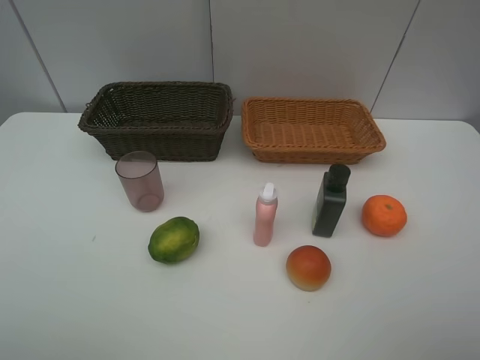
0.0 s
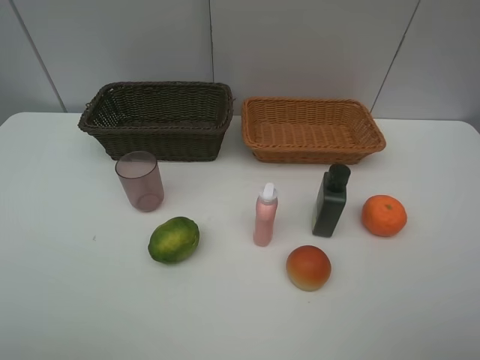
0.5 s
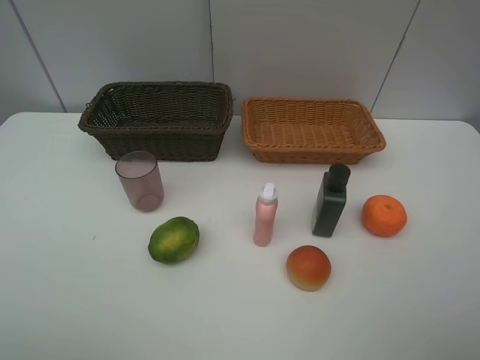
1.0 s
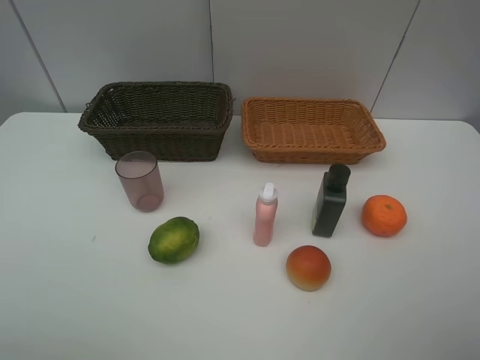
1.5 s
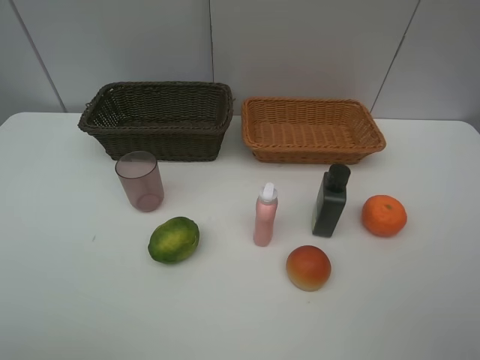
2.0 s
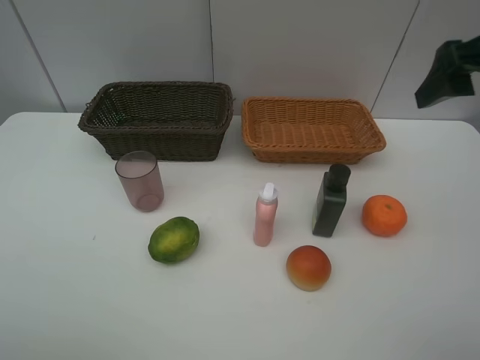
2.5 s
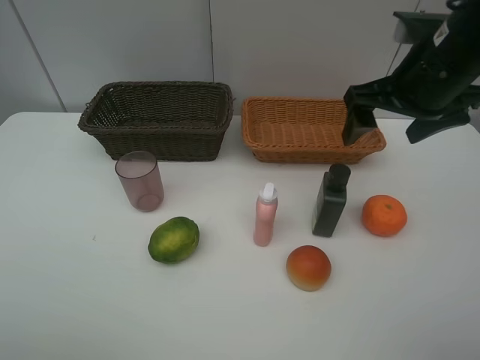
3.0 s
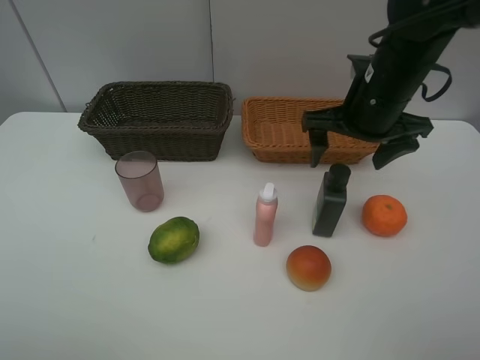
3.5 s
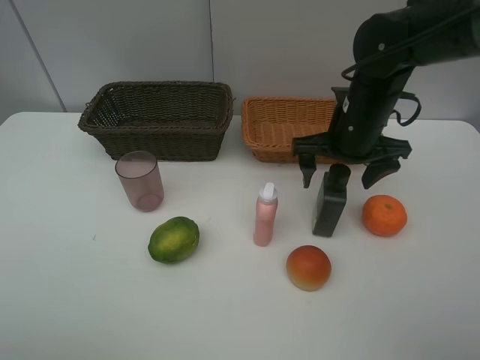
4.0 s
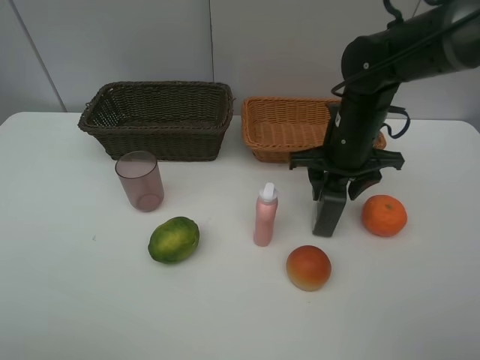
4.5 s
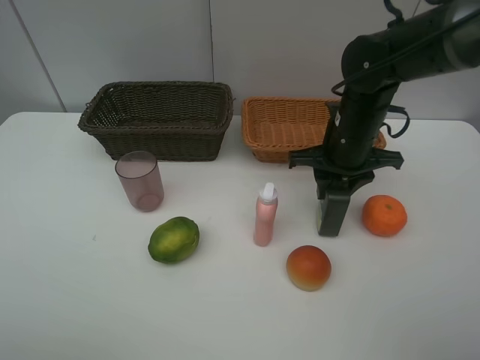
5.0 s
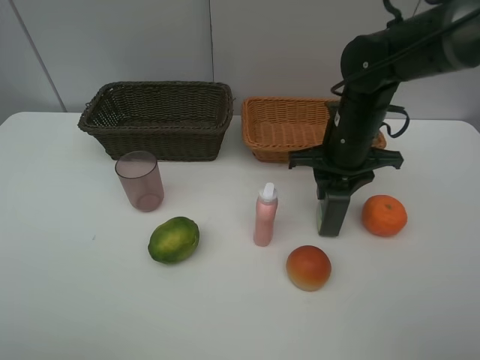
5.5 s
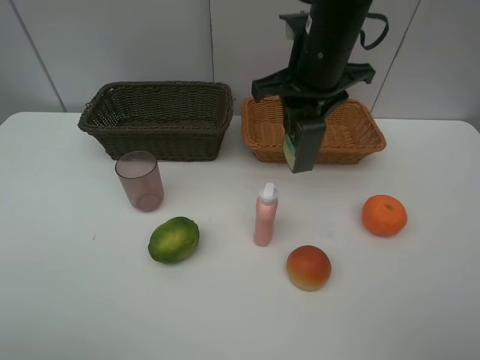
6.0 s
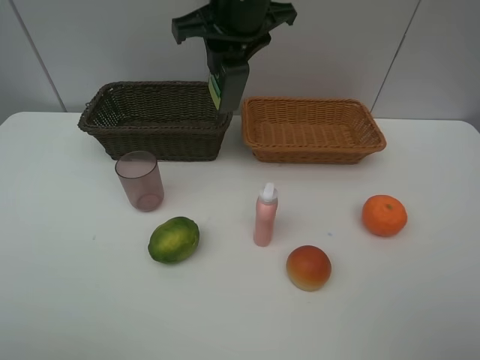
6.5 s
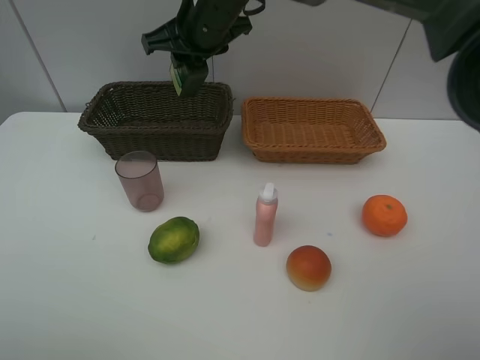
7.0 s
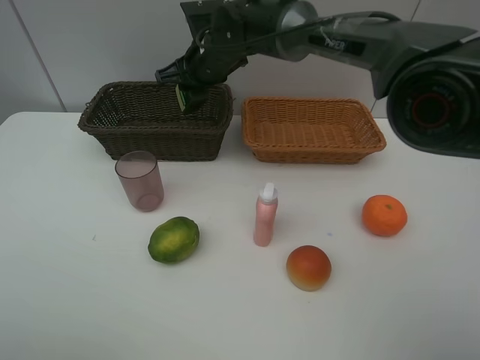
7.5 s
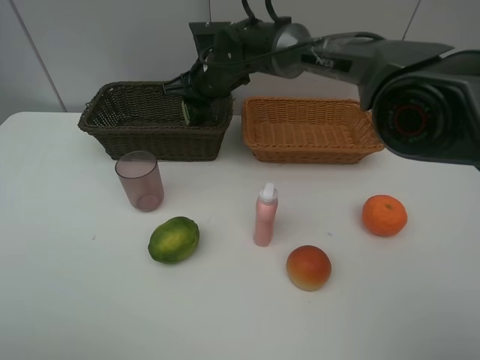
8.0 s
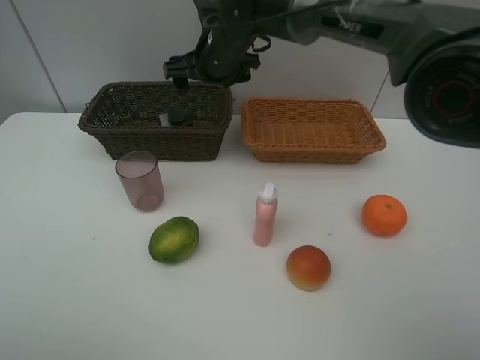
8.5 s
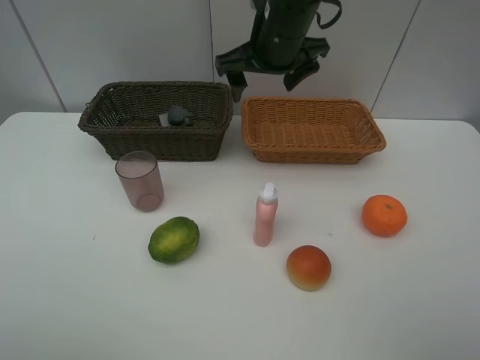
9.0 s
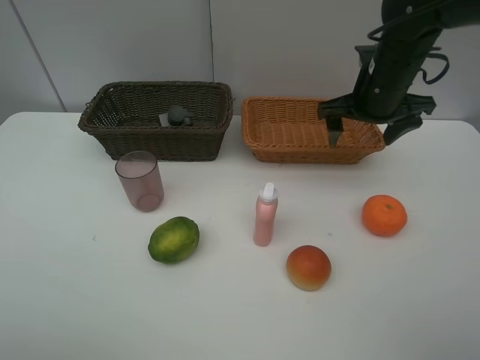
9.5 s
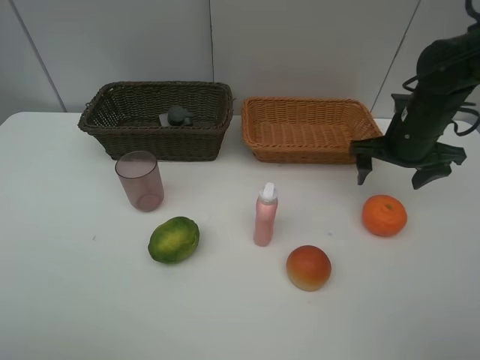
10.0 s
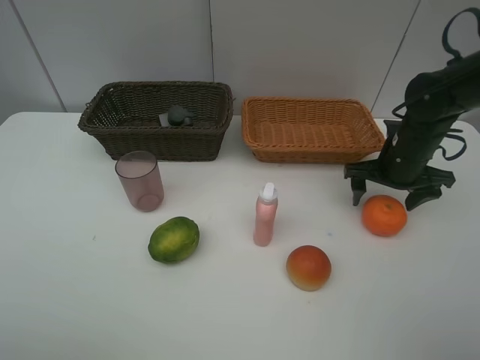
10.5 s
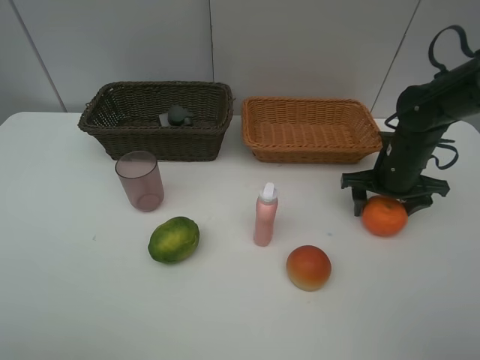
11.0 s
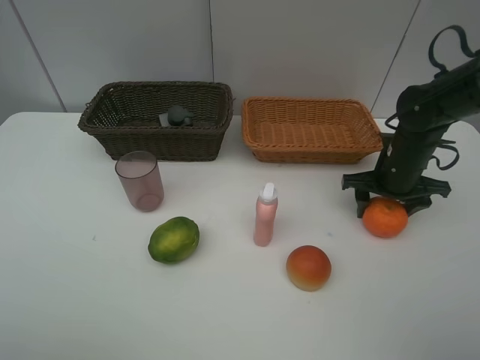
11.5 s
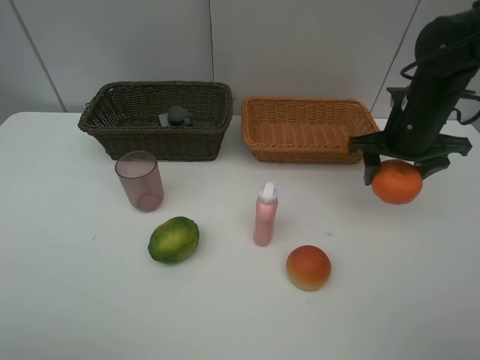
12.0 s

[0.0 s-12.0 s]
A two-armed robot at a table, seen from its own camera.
Task of the whole recording: place multiple objects separately in different baskets.
2.0 to 4.0 s: The right gripper shifts some 30 cm forward, to the left and downward.
4.0 to 6.0 s: The right gripper moves upward and to the left, some 10 cm, and closes its fingers.
6.0 to 8.0 s: The right gripper travels to the left, forward and downward by roughly 20 cm.
8.0 to 10.0 s: The right gripper is displaced to the right and backward by approximately 30 cm, and opens.
10.0 to 12.0 s: The grippers make only small movements.

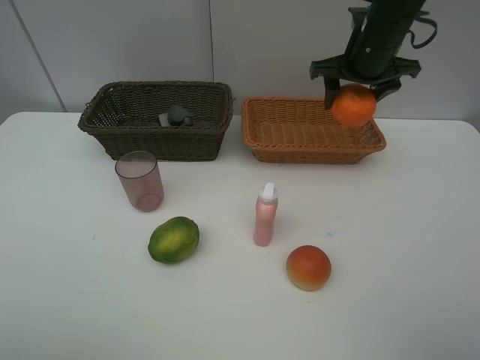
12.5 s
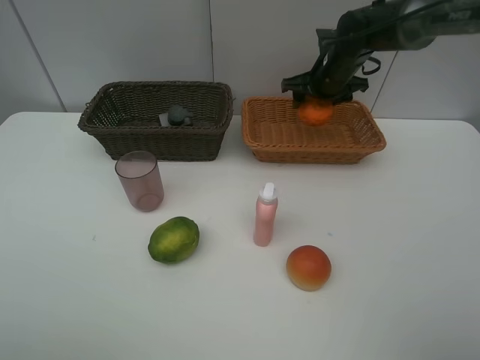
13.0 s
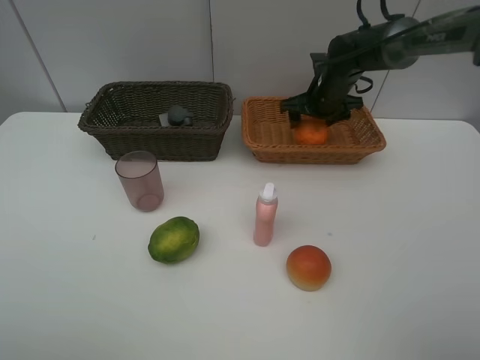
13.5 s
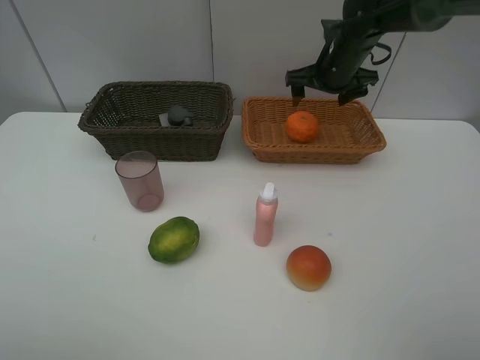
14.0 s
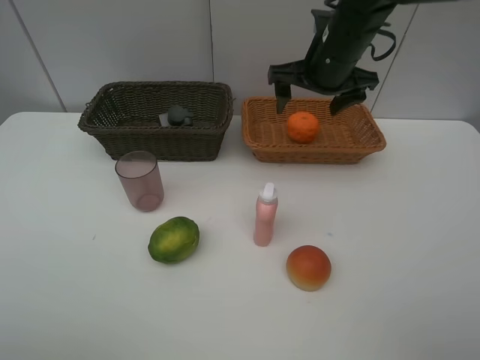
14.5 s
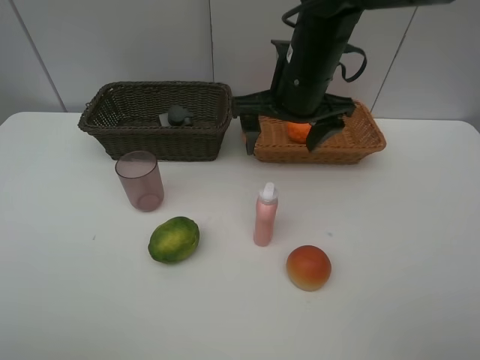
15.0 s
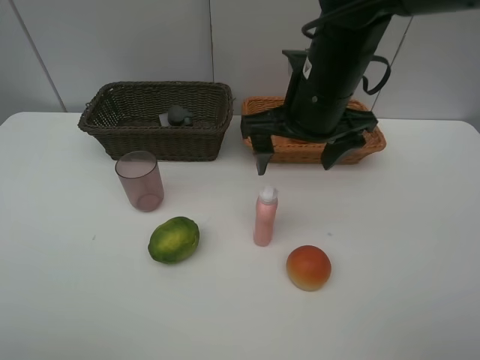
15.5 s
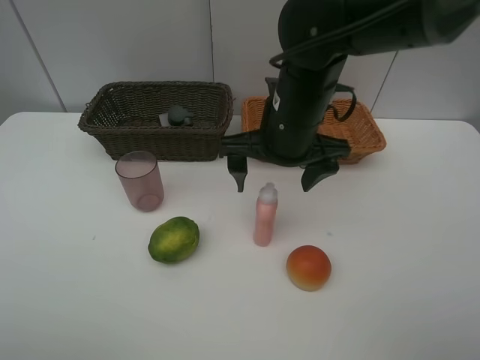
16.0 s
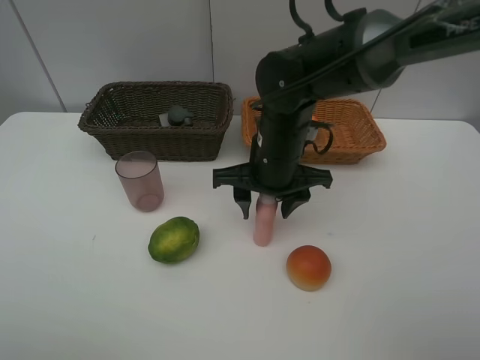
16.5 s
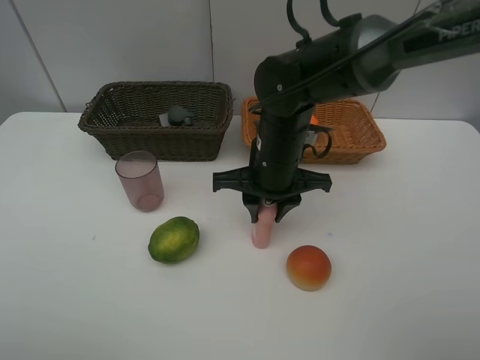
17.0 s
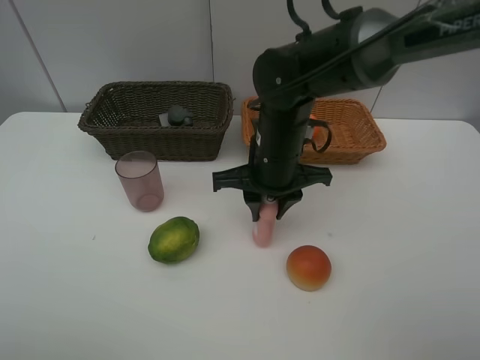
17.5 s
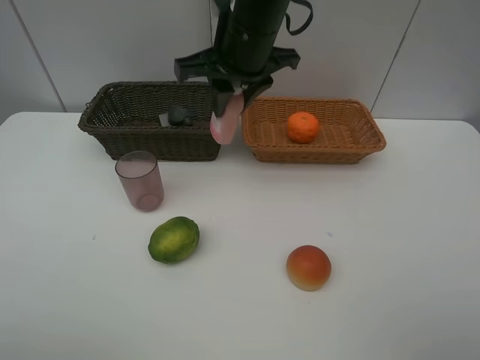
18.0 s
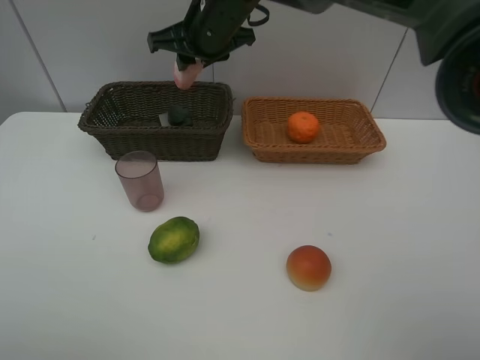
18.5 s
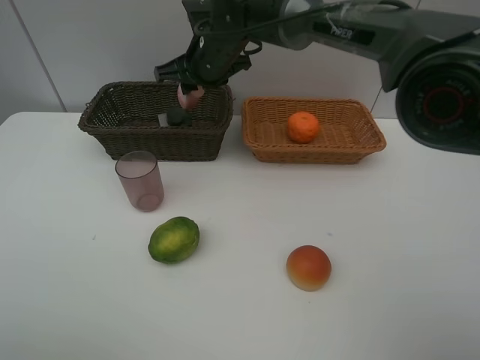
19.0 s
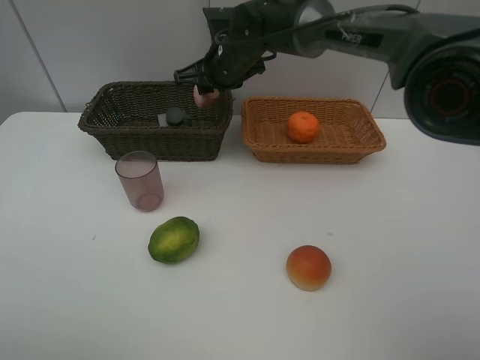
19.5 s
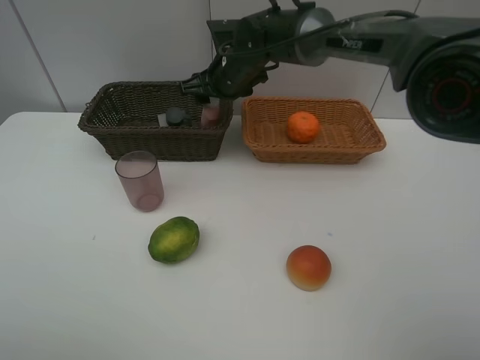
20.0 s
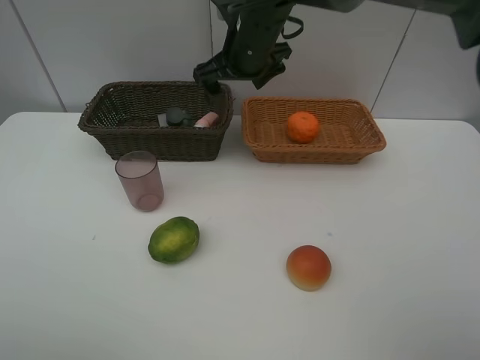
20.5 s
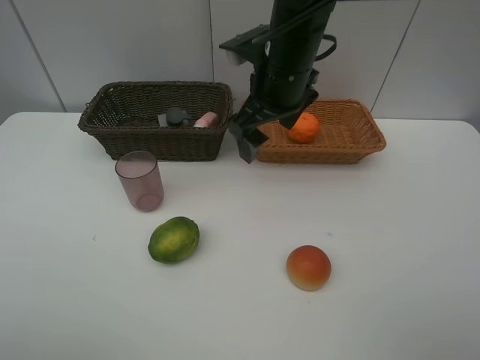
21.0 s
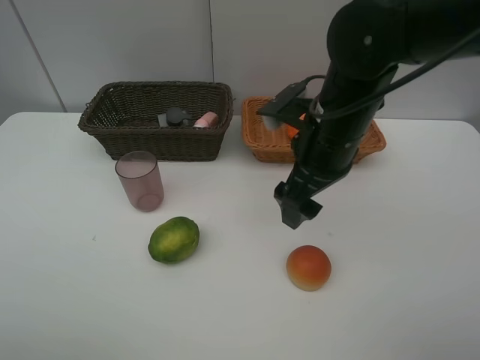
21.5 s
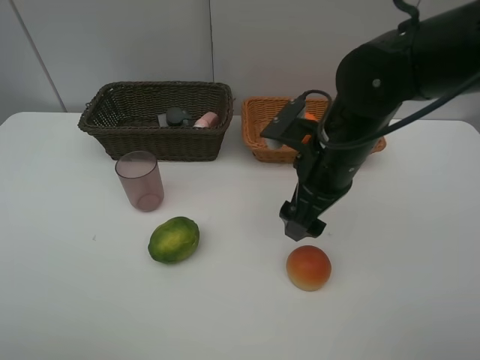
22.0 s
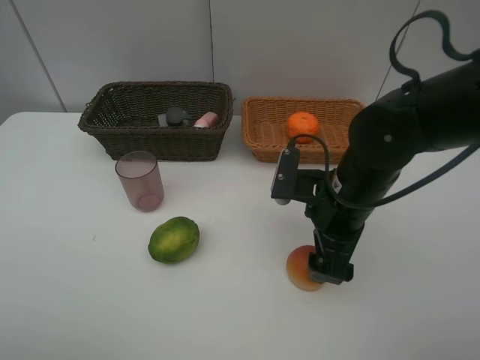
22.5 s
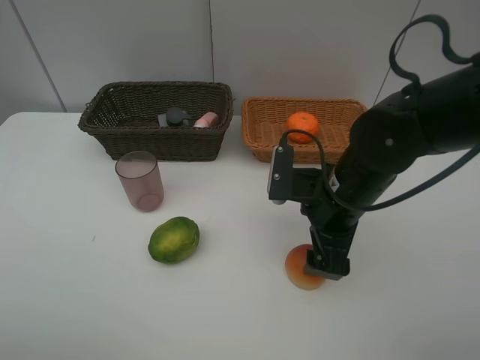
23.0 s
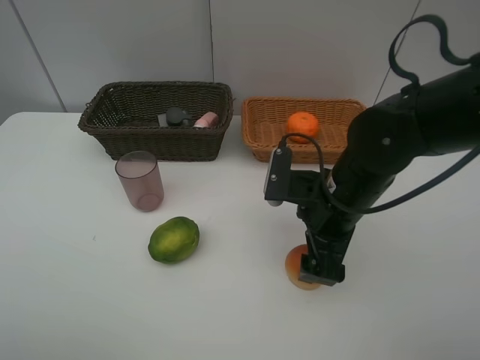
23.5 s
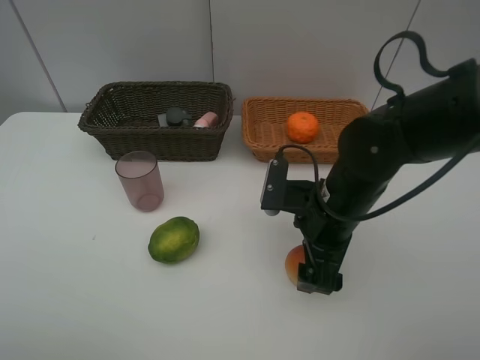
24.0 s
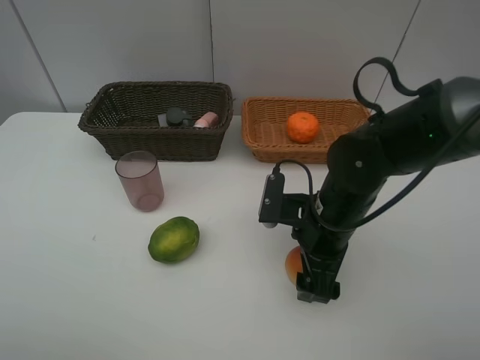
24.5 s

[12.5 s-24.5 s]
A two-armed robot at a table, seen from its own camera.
Task of the whole recording: place multiple objects separately in different baskets.
12.5 to 14.5 s: The right gripper moves to the left, about 5 cm, moves some 10 cm downward and comes back, and opens up.
14.5 to 16.5 s: The right gripper shifts some 15 cm downward, backward and to the left, and closes its fingers.
16.5 to 18.5 s: The right gripper shifts approximately 20 cm forward, upward and to the left.
18.5 to 20.5 s: The right gripper travels to the right by approximately 5 cm, and opens.
20.5 to 22.5 s: The right gripper is displaced backward, to the right and downward by roughly 25 cm.
22.5 to 24.5 s: The grippers move only a little.

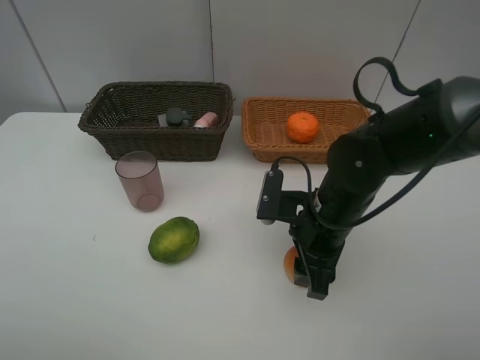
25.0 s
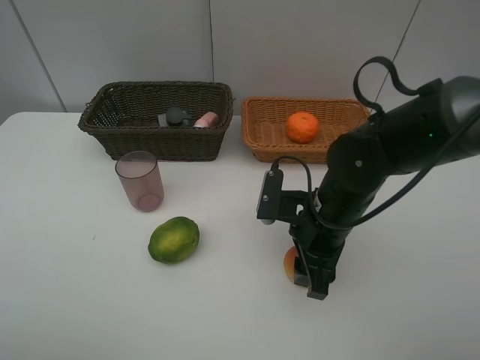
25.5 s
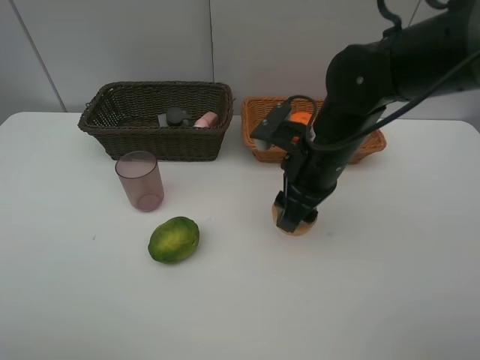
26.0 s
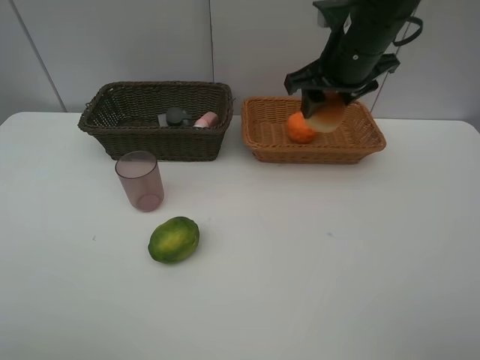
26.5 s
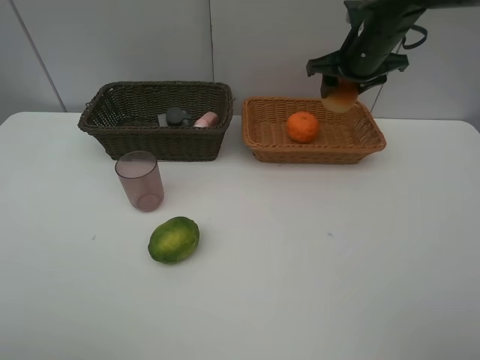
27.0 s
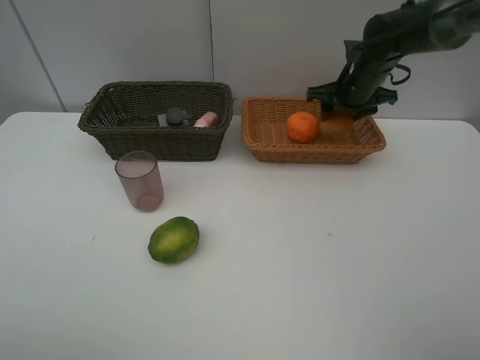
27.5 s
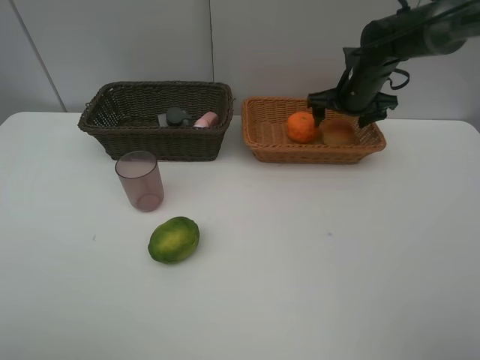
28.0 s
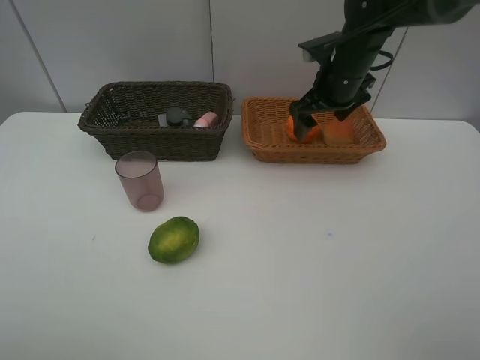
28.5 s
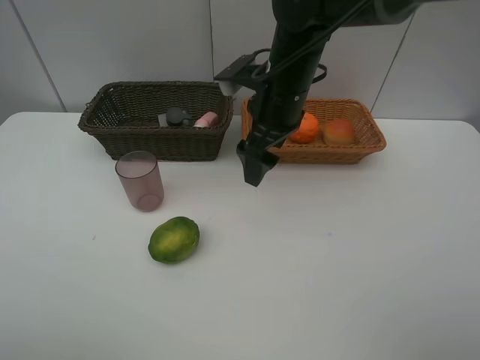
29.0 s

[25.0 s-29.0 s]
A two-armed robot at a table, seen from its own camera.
Task of the whole recording: place multiple objects separately in different baskets.
25.0 to 27.0 s: The right gripper heads forward and upward, covering approximately 25 cm.
27.0 to 29.0 s: The right gripper travels to the left and backward by approximately 20 cm, and opens.
